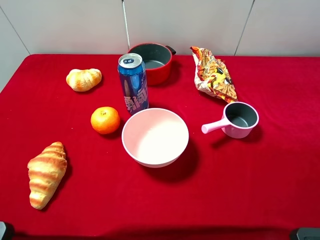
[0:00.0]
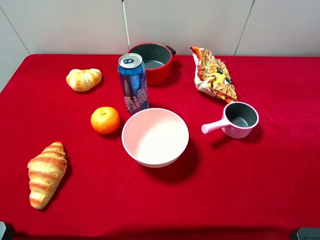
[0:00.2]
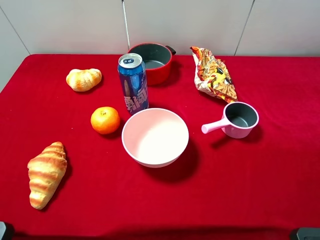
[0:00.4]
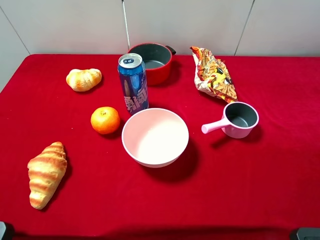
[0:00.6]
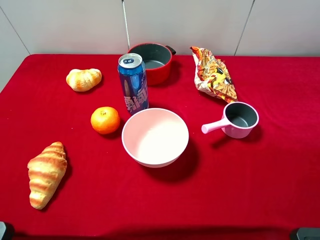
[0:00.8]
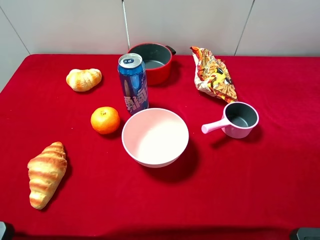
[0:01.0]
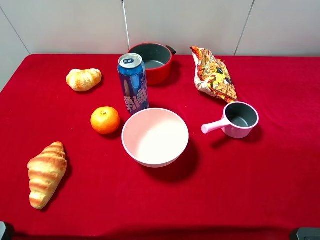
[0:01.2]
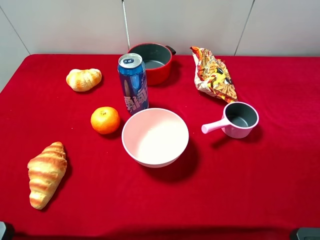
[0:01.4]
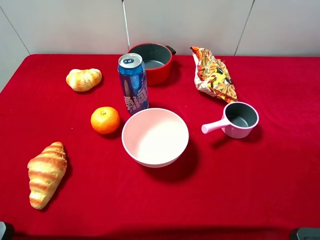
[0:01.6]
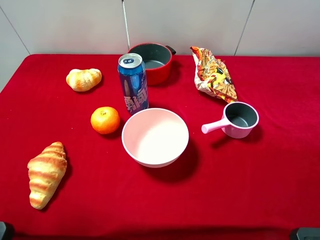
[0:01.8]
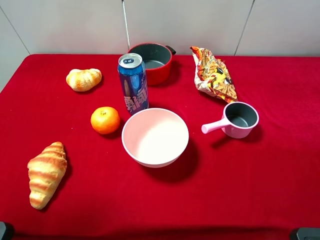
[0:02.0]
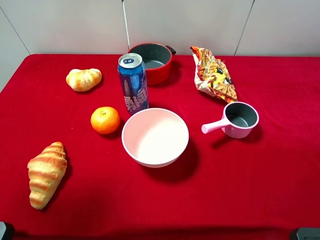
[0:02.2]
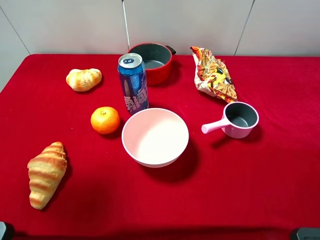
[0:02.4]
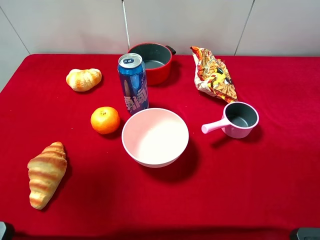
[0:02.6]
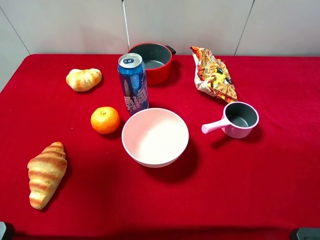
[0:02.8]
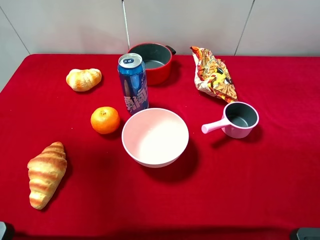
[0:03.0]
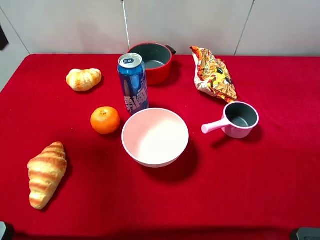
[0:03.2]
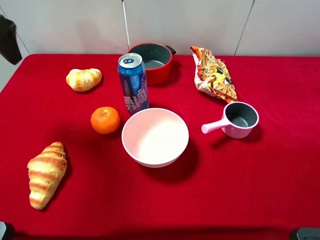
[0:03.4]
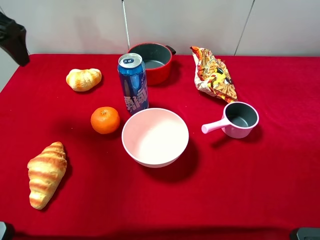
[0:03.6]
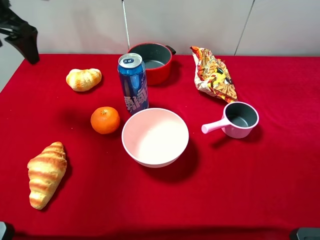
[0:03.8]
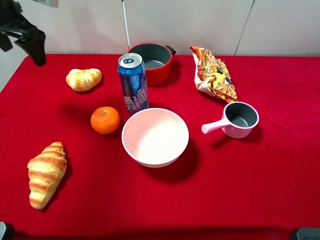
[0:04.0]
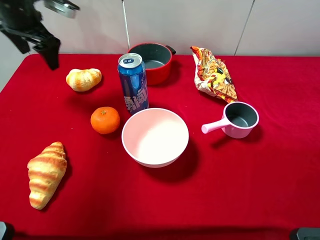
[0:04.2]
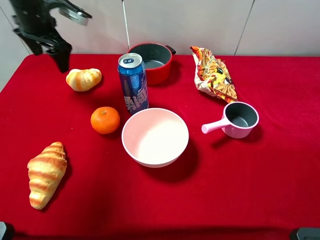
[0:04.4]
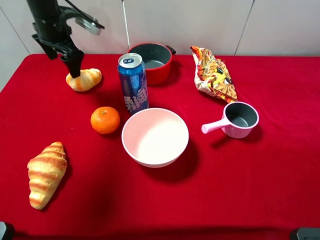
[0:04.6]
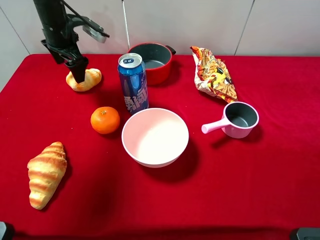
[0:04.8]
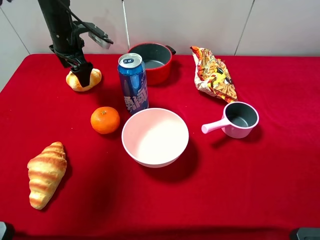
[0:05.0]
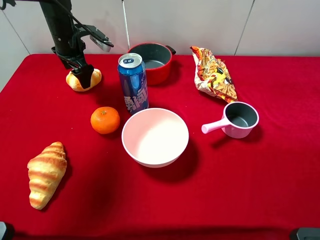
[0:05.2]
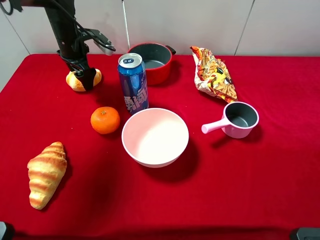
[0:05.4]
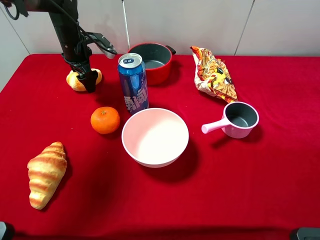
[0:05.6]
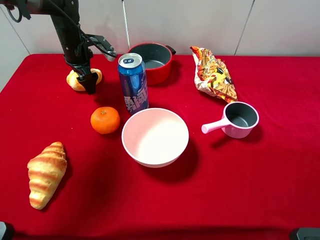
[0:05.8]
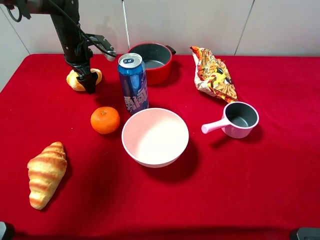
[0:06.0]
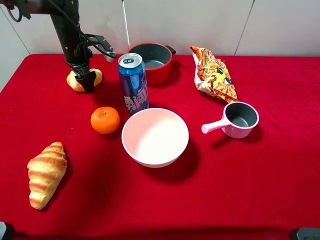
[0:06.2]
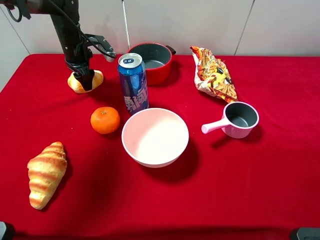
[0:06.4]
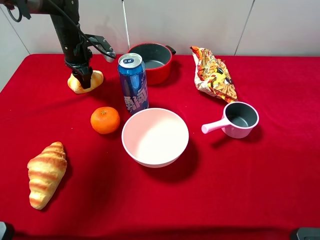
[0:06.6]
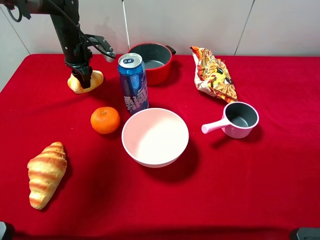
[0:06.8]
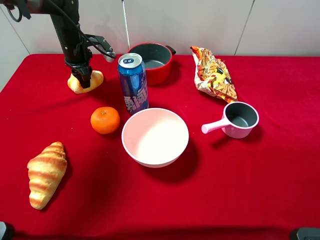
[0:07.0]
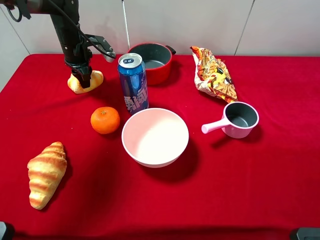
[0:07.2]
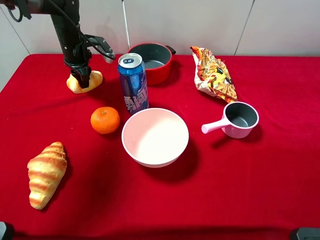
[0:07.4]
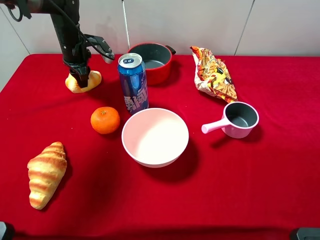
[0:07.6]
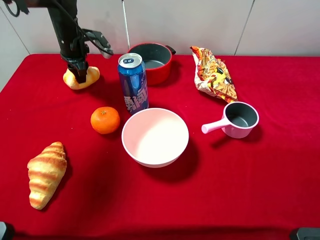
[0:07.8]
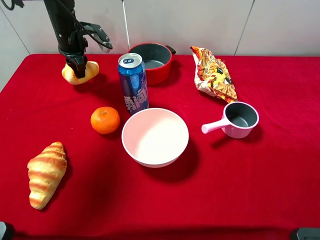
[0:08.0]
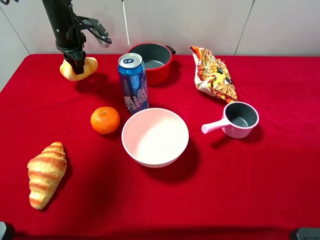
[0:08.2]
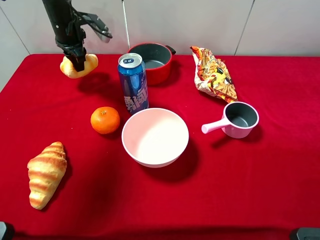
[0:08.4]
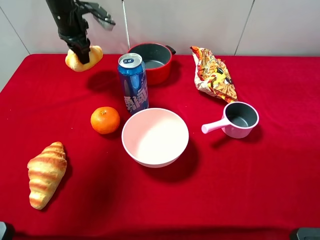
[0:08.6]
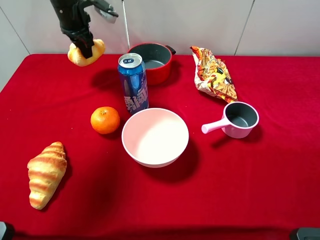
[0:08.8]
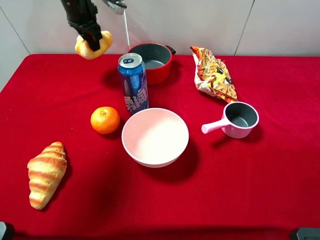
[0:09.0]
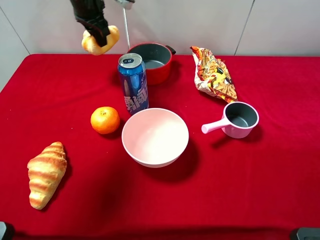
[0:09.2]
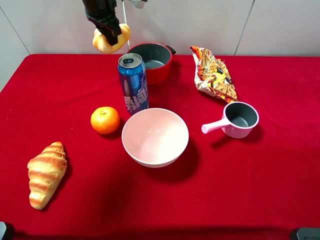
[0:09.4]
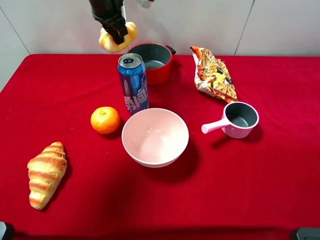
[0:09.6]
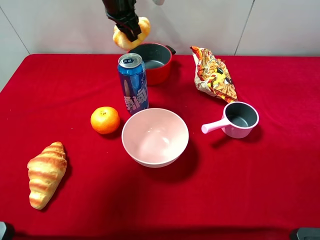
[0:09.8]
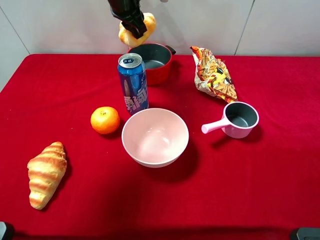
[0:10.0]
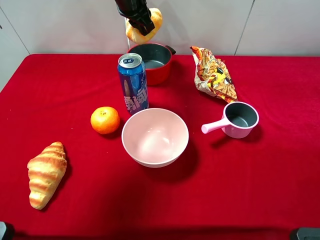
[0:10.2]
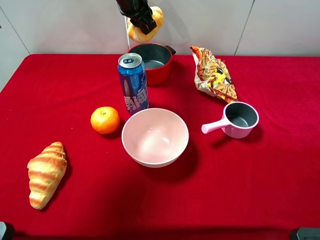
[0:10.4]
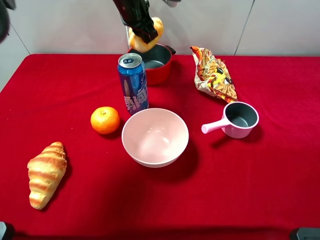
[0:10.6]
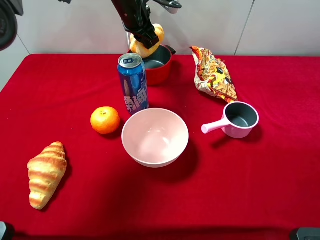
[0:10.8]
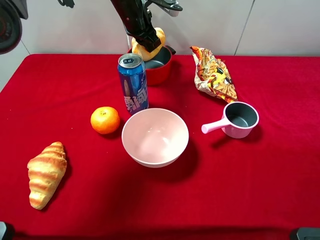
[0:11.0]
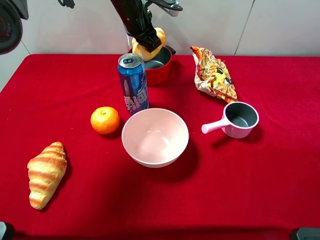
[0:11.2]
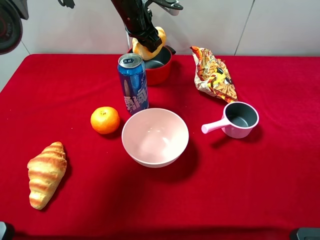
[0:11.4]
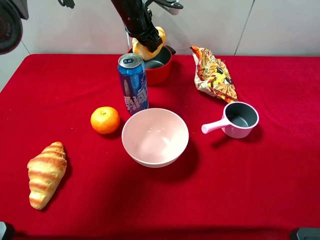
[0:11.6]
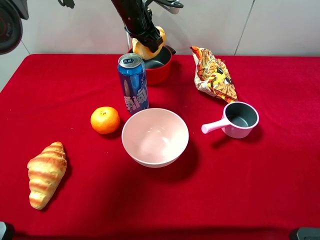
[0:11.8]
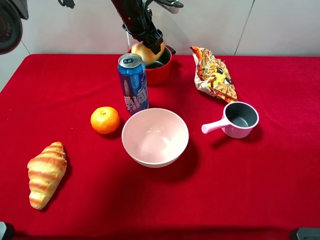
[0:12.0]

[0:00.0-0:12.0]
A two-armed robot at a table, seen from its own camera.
Task of the whole recording: pick up an item with a gripper and place it in a random container on the desktop.
0:01.6 to 0:03.0: The left gripper moves forward, some 25 cm.
0:03.0 to 0:04.4: The left gripper moves forward and downward, roughly 20 cm.
0:04.4 to 0:06.0: The left gripper heads downward, covering about 10 cm.
0:06.0 to 0:07.6: The left gripper closes.
0:07.6 to 0:09.0: The left gripper moves upward, about 10 cm.
0:09.0 to 0:10.4: The left gripper moves to the right, about 10 cm.
0:10.4 to 0:12.0: The left gripper changes place by some 5 cm, and opens.

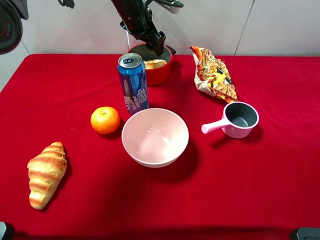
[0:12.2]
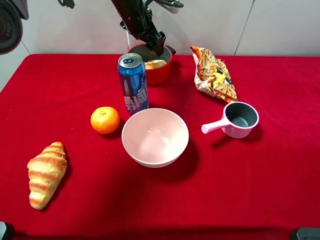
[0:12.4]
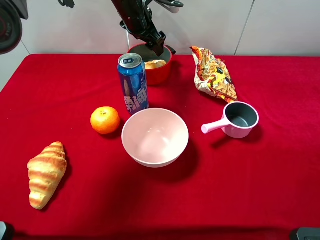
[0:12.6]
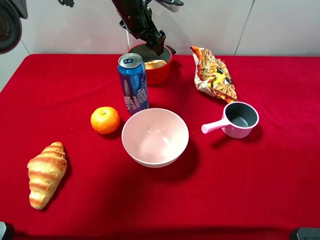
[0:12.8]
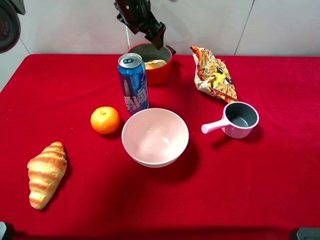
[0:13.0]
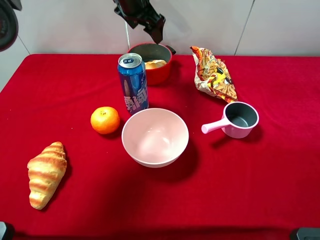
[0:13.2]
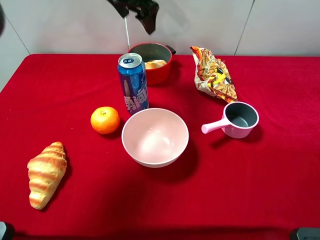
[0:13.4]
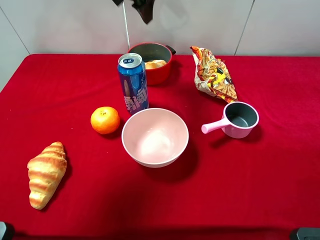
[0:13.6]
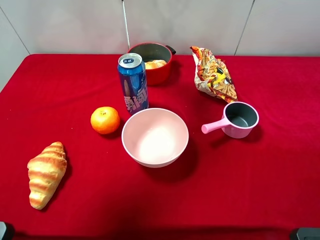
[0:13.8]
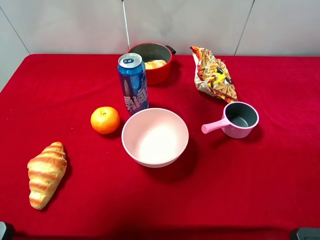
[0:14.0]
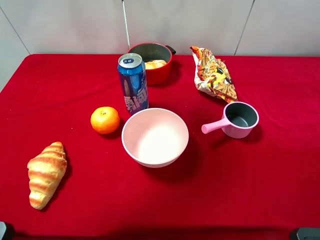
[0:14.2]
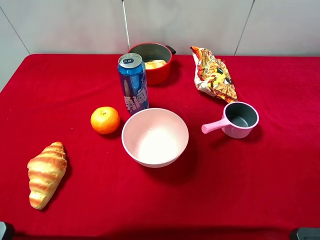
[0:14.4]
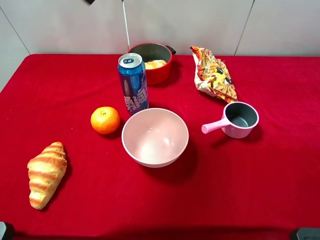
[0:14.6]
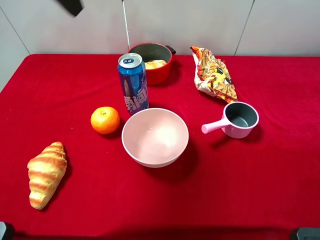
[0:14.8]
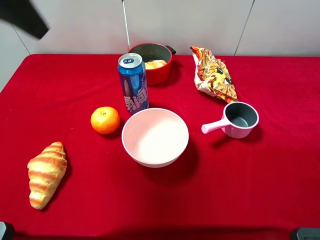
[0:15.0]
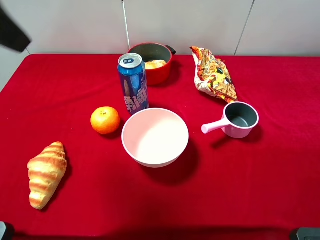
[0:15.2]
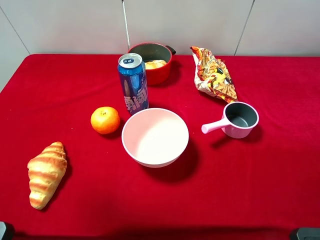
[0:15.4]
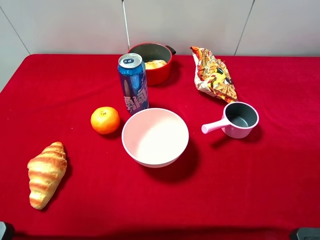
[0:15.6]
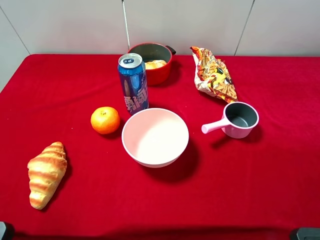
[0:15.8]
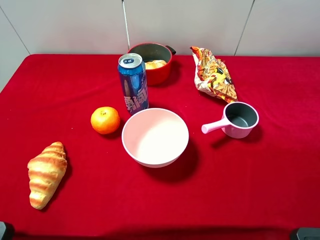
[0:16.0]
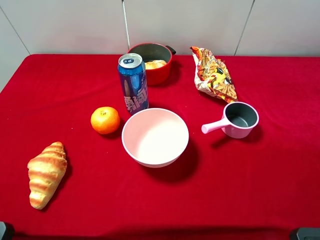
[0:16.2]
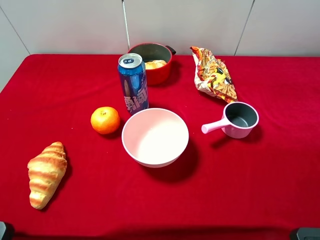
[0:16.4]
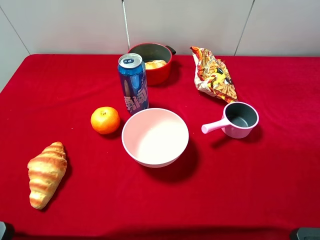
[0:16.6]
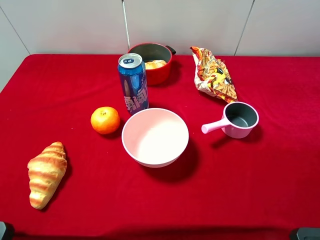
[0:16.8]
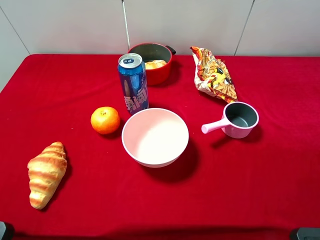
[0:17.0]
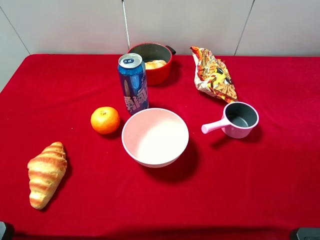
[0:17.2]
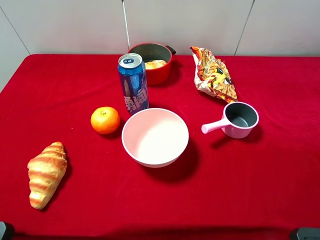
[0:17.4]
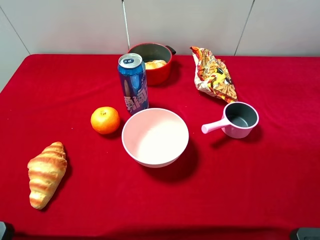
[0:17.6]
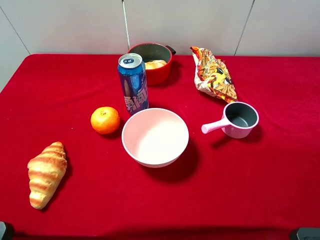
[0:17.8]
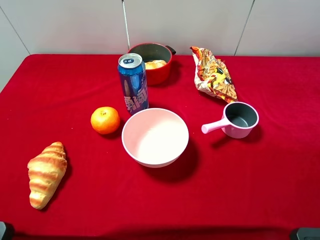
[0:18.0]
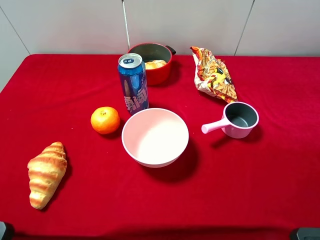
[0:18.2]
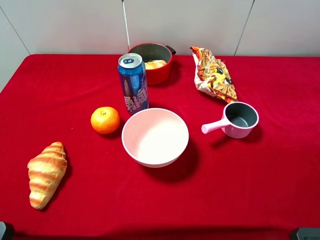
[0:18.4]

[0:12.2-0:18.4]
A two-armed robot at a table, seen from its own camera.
Task of the whole recording: pick up an item with a gripper and place it in a random container on the desktop.
0:12.2 to 0:13.8: The left gripper travels upward by about 15 cm.
0:13.8 to 0:15.4: The left gripper moves backward and to the left, approximately 35 cm.
0:16.8 to 0:18.4: The two grippers keep their place.
